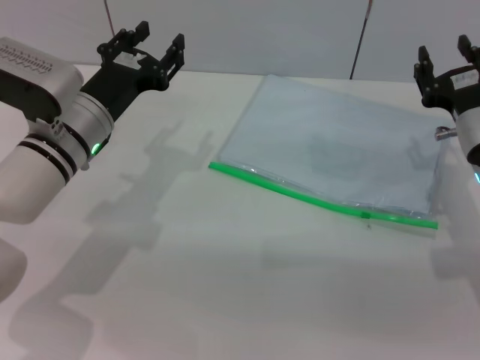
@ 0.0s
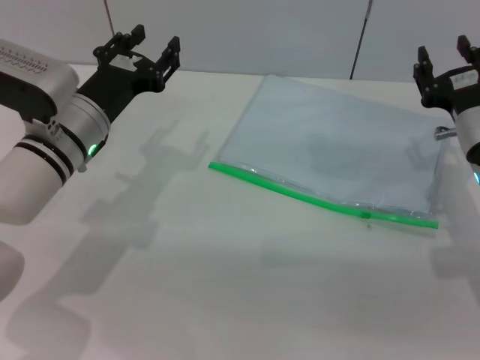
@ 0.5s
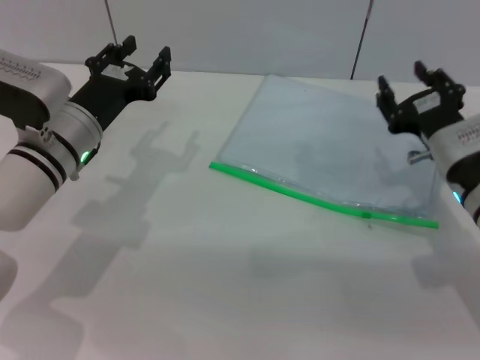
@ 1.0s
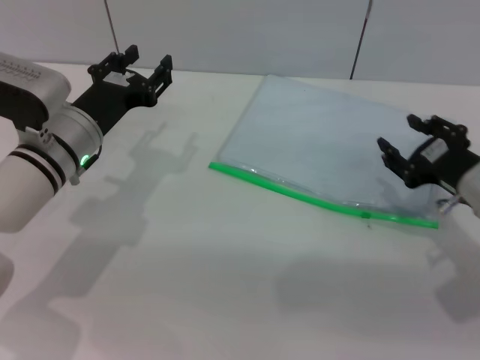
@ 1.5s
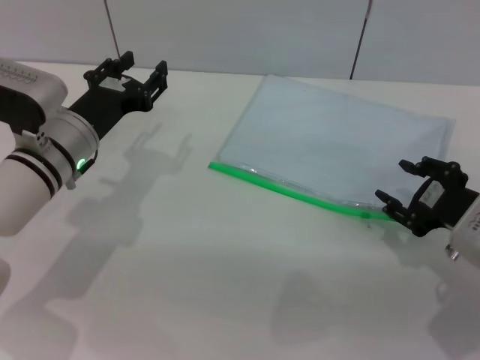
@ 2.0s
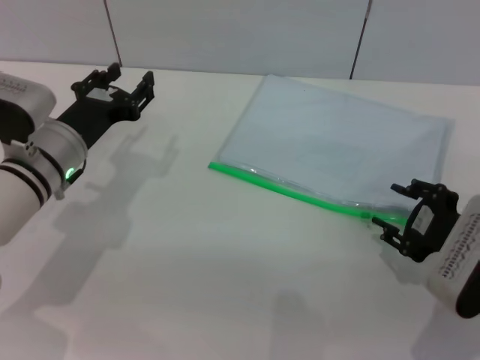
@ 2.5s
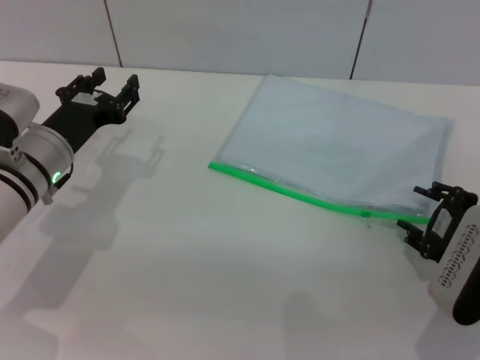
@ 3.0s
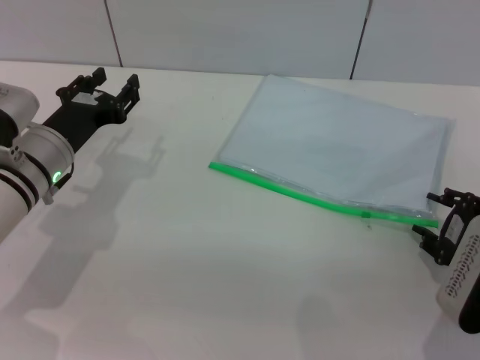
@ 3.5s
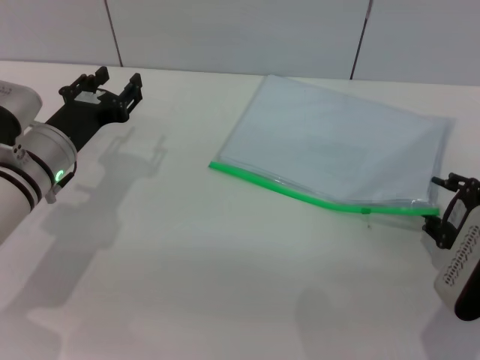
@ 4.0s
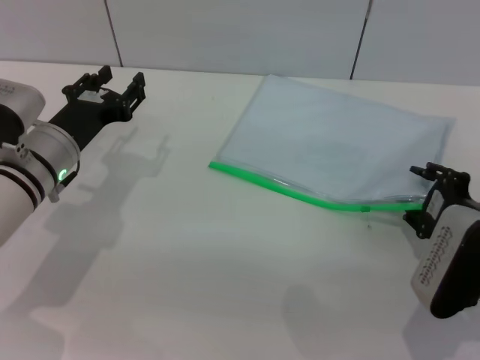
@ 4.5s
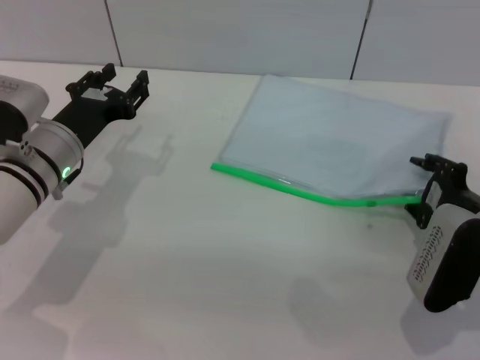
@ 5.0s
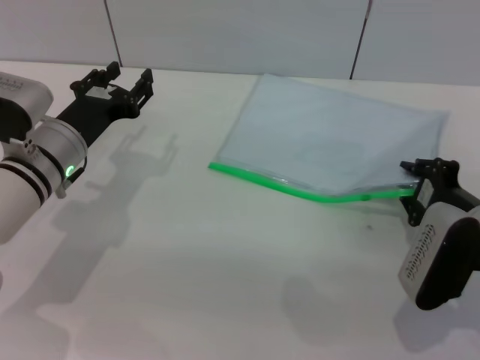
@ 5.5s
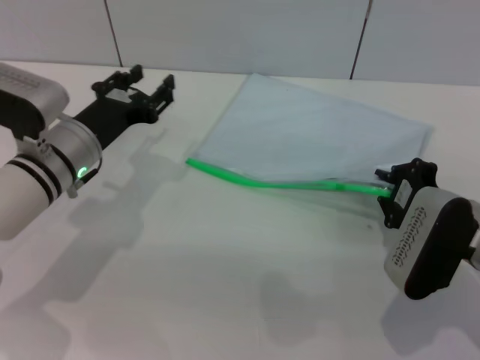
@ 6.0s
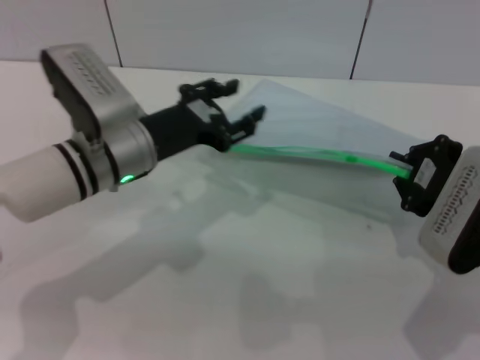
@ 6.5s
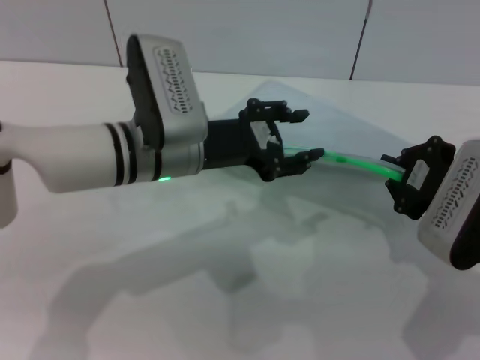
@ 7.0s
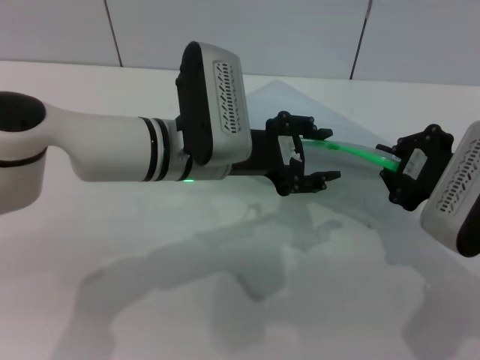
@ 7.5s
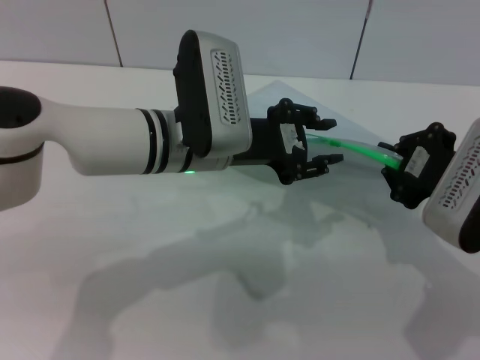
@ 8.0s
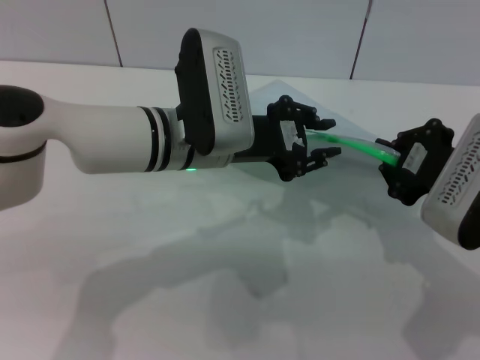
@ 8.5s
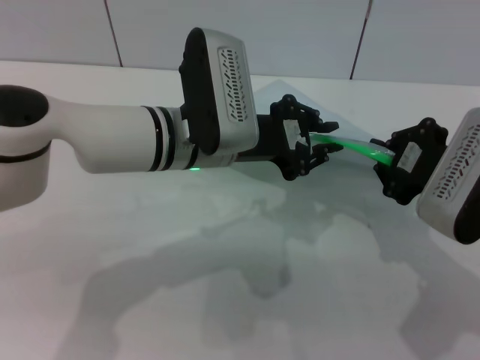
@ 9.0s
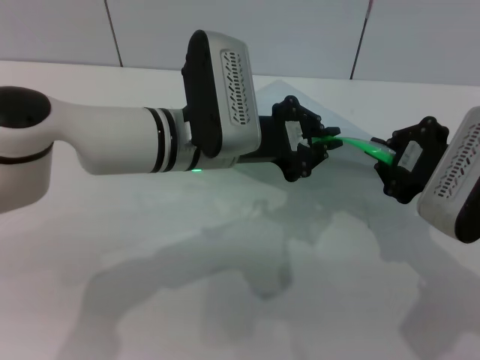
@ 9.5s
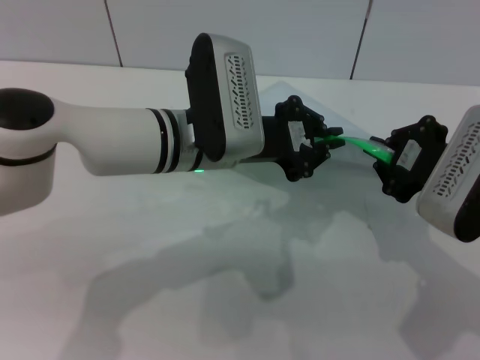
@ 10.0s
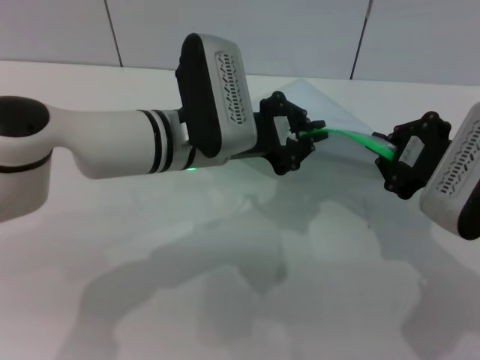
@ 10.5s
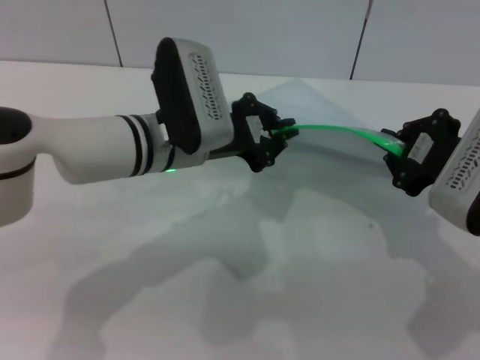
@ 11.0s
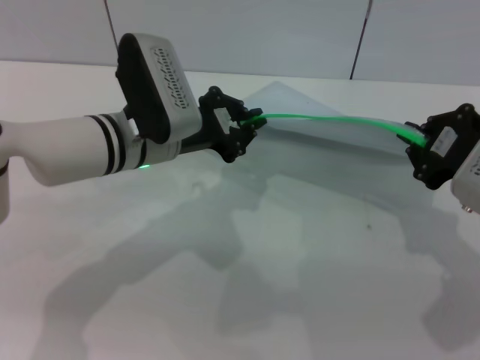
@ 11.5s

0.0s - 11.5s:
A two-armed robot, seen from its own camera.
Step, 0.0s - 6.5s: Pick up the transparent plastic bag with the right gripper.
0.0s - 2.0s: The right gripper heads backward, covering approximately 5 cm.
4.0s - 6.0s: The right gripper moves roughly 5 cm, and closes its fingers.
6.0s - 7.5s: The left gripper heads to the right and upward, covering roughly 15 cm; the right gripper shifts approximately 10 cm upward.
7.5s - 9.5s: The left gripper closes up.
9.5s - 11.5s: The left gripper moves to the left, about 5 cm.

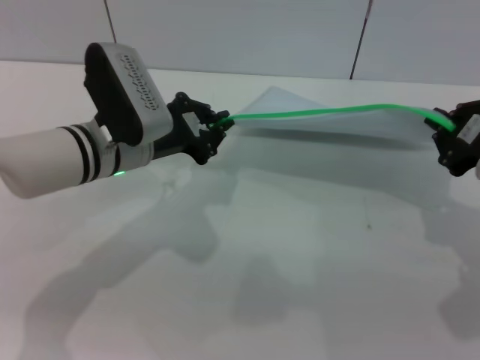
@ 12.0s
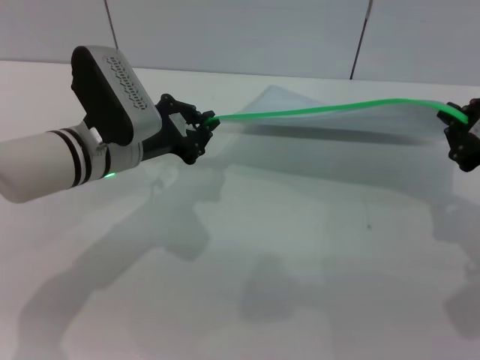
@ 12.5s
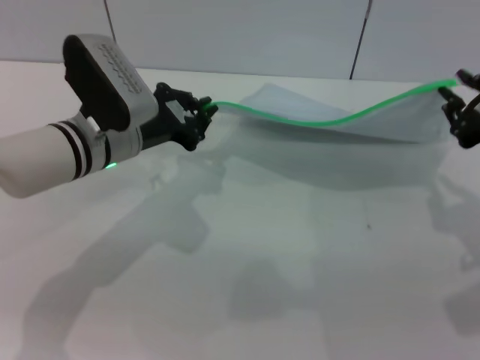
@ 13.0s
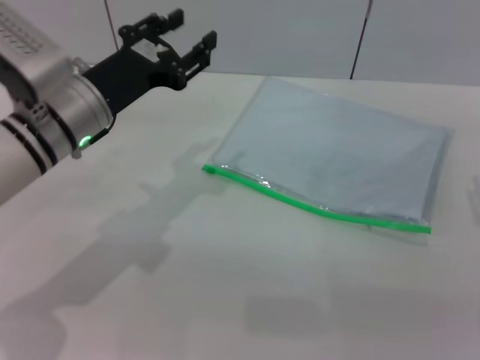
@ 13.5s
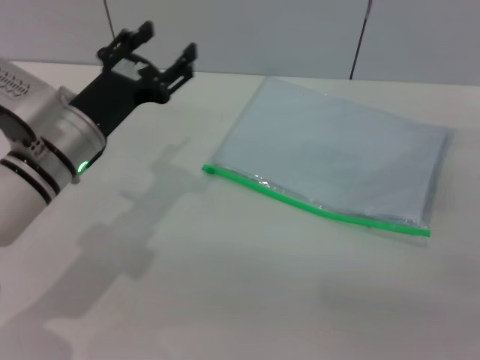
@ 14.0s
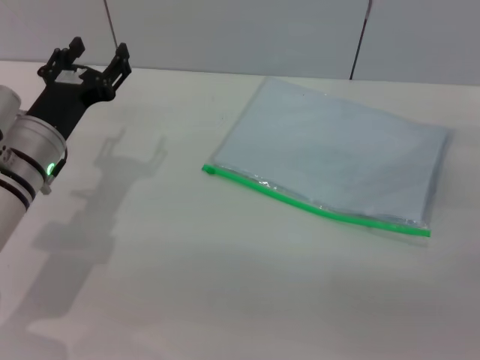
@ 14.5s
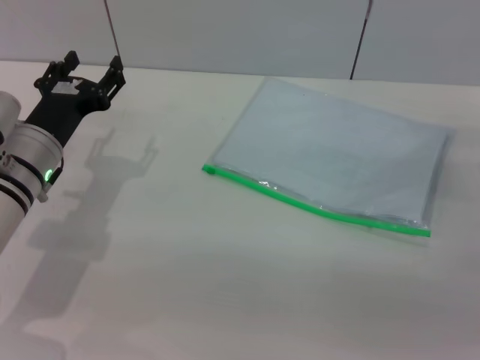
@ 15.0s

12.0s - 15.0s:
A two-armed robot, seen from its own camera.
12.0s - 13.5s: The left gripper opens its fingers; the right gripper opens its fingers.
13.5s - 15.0s: The right gripper goes about 10 cm downward and forward; the left gripper heads downward, covering about 5 cm, and opens.
